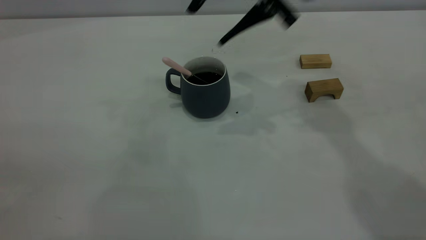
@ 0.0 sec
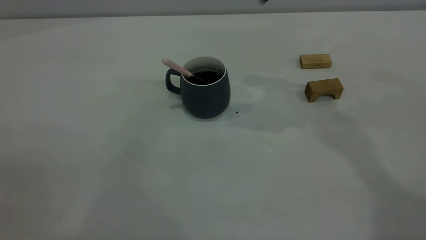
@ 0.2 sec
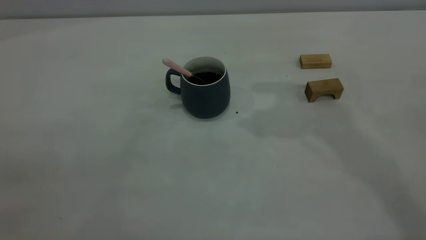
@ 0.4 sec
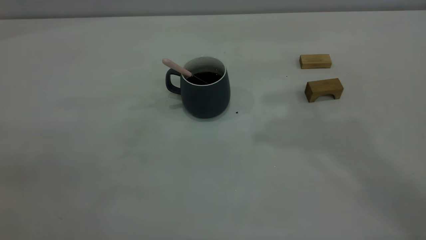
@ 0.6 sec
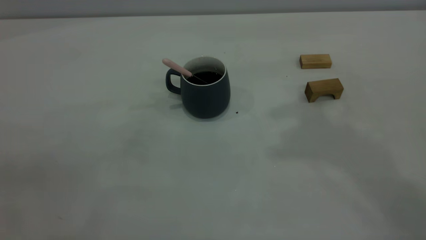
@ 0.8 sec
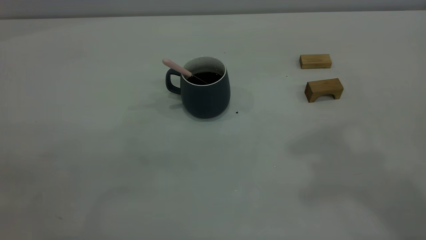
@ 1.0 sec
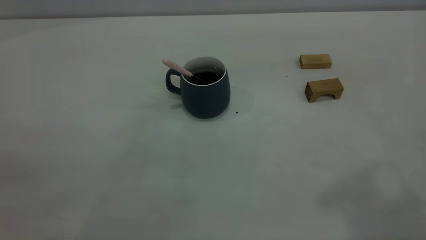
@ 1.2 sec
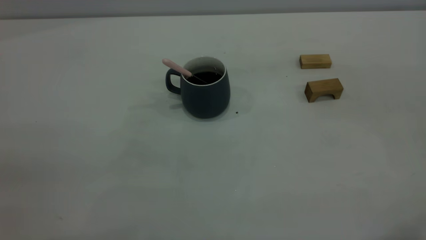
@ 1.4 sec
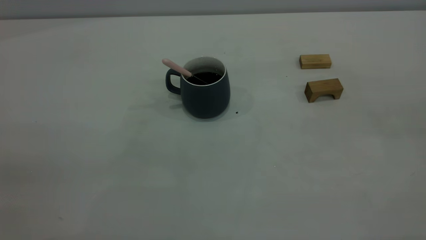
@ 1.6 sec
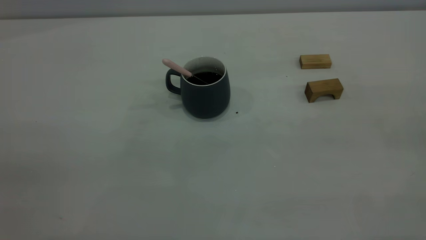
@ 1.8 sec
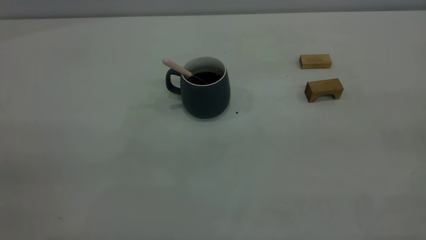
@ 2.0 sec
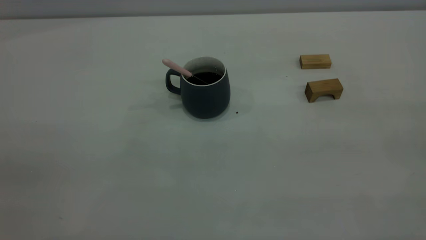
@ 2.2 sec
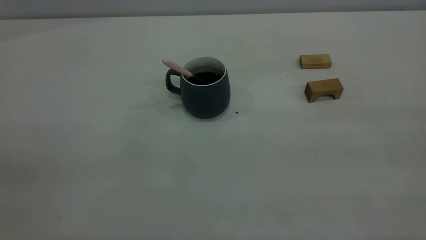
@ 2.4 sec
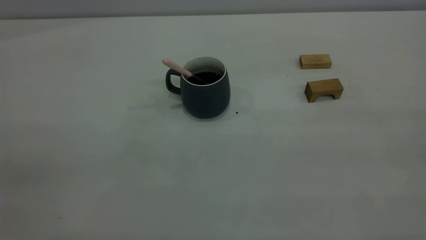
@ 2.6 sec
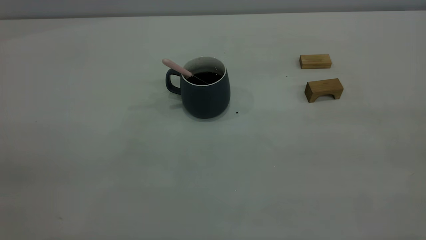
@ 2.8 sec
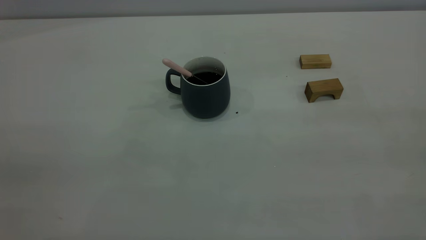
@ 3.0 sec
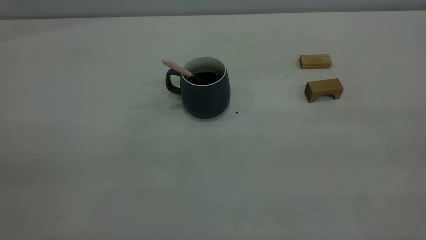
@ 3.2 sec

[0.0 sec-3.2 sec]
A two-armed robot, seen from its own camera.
0.0 sec to 1.6 sec: The right gripper heads backward, to the right and upward, covering some 40 cm, and closes up.
